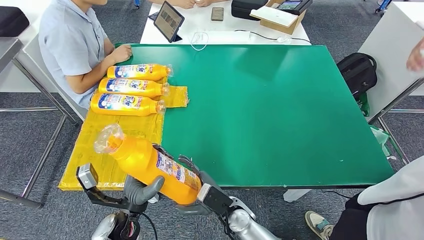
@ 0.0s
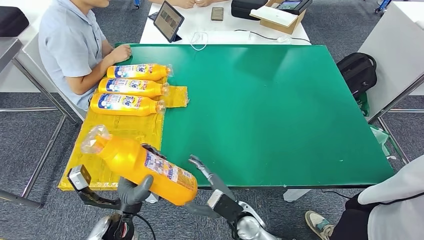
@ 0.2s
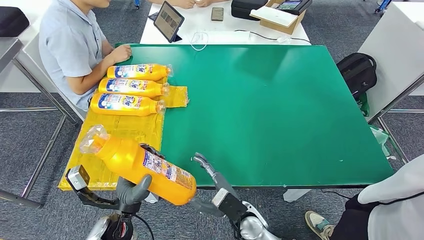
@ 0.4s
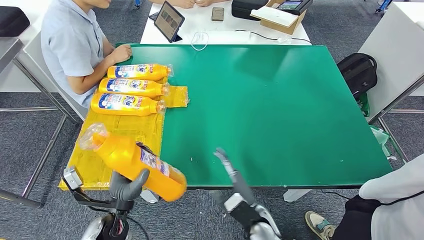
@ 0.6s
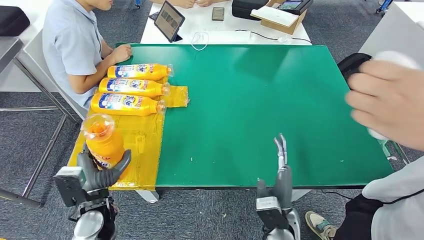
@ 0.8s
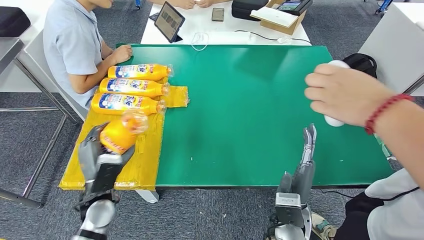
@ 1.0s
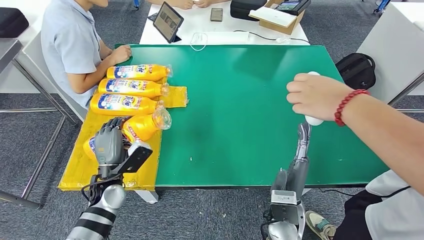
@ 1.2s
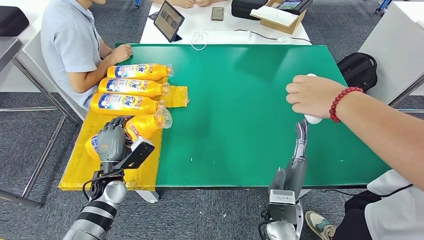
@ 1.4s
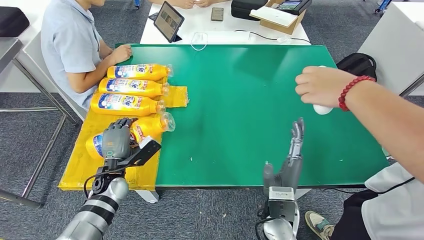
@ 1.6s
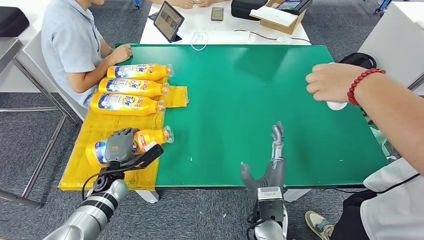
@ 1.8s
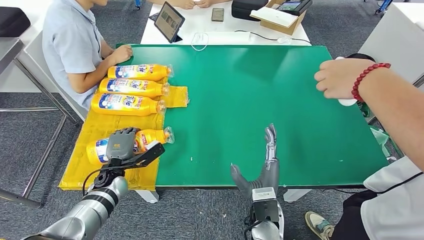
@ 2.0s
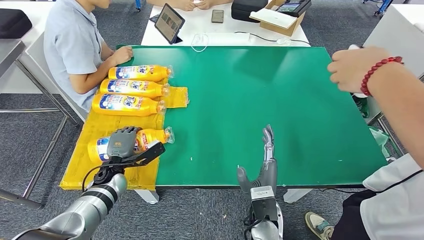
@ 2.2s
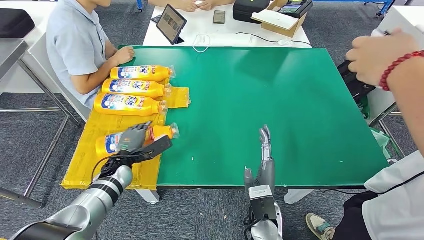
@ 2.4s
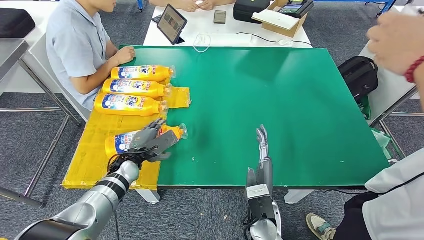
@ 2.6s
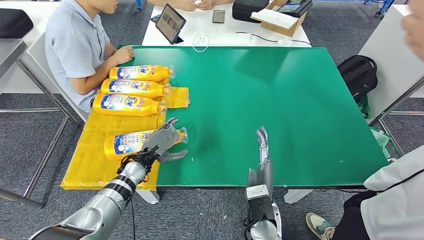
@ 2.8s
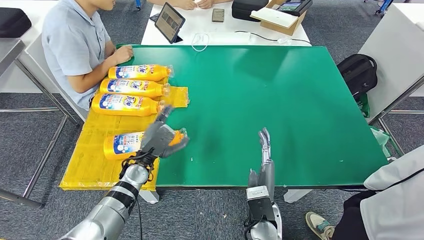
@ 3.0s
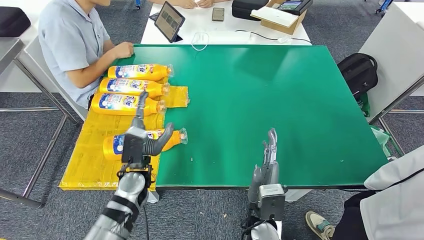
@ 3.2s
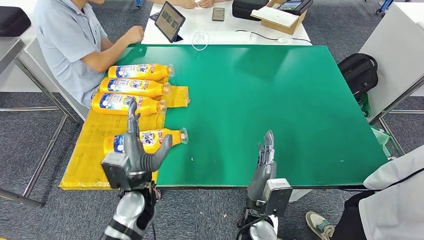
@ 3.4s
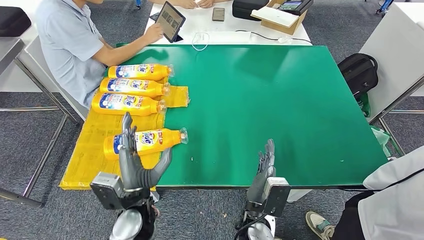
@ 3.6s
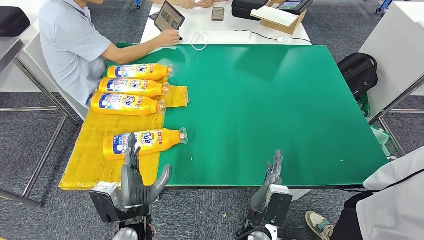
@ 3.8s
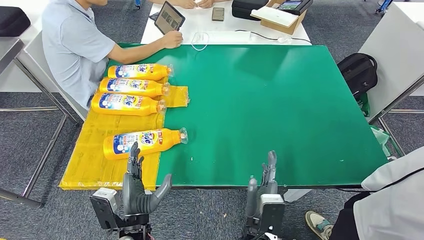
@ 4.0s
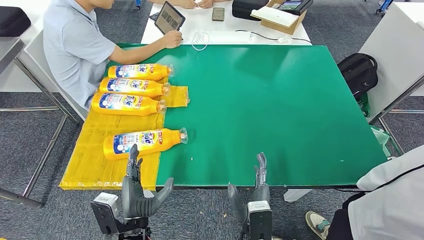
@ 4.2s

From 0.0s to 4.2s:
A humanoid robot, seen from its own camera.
Step, from 0.0s to 4.2s: Flip the fast-moving consumer goods bottle to the front side.
